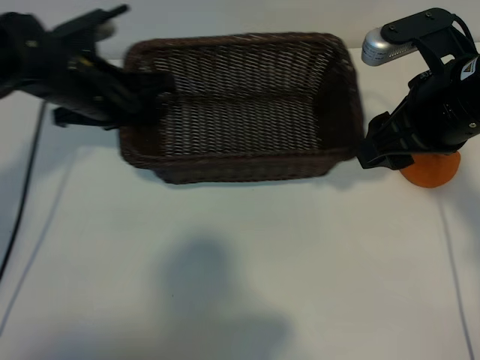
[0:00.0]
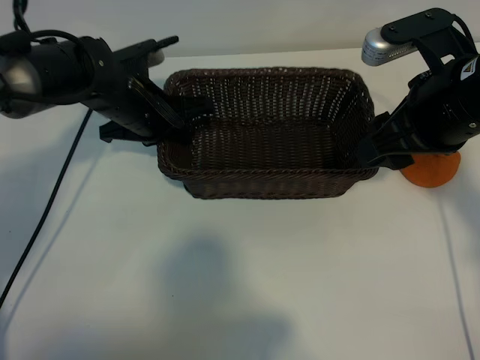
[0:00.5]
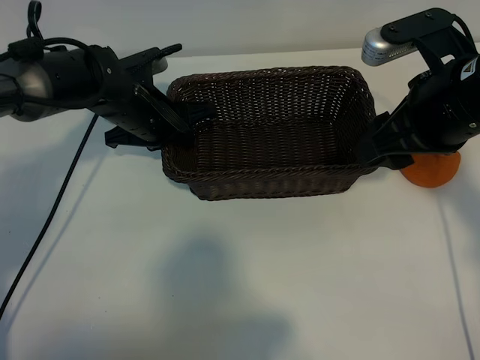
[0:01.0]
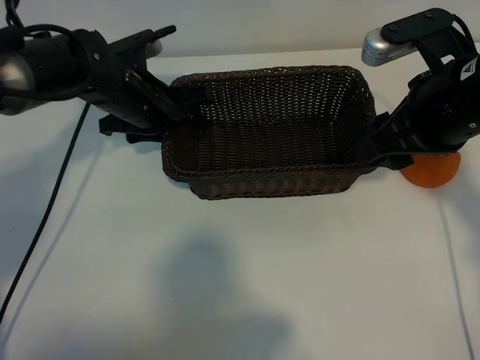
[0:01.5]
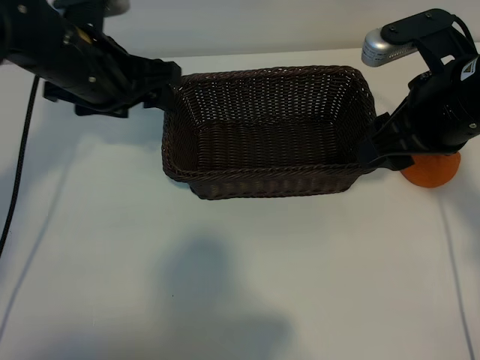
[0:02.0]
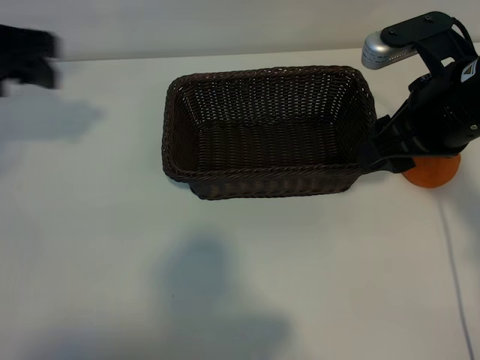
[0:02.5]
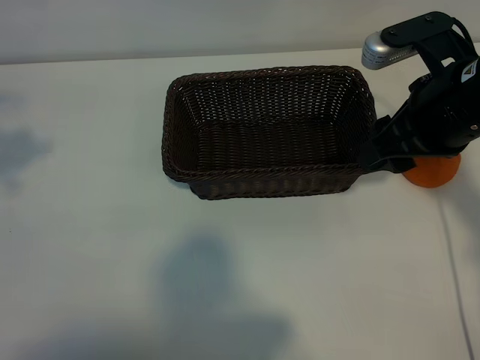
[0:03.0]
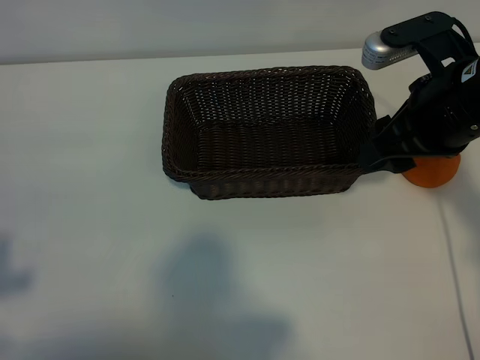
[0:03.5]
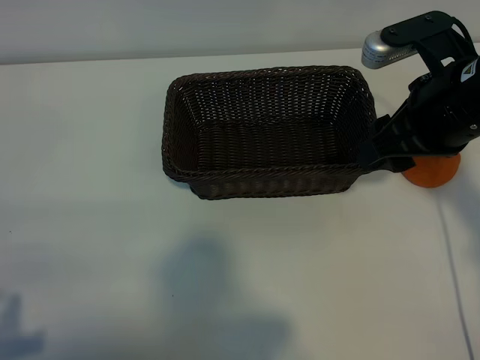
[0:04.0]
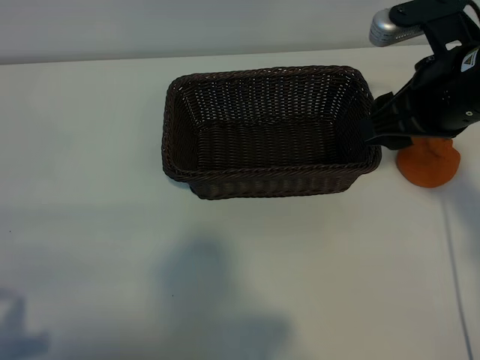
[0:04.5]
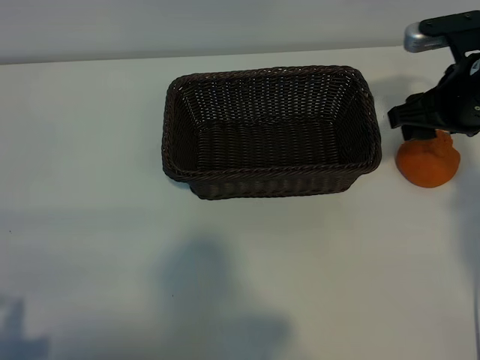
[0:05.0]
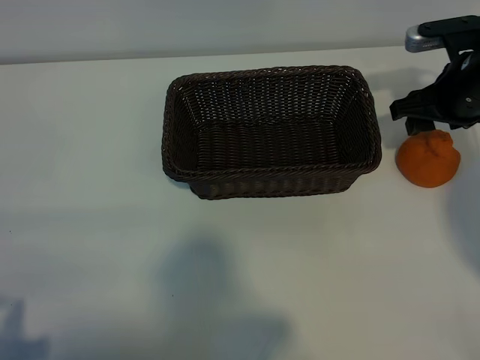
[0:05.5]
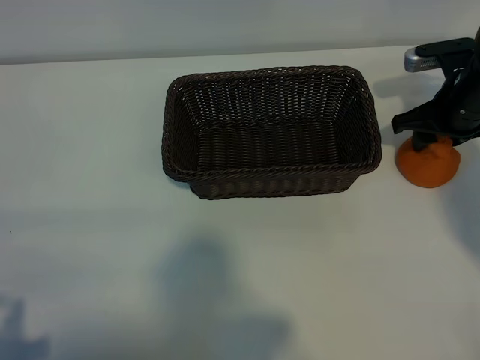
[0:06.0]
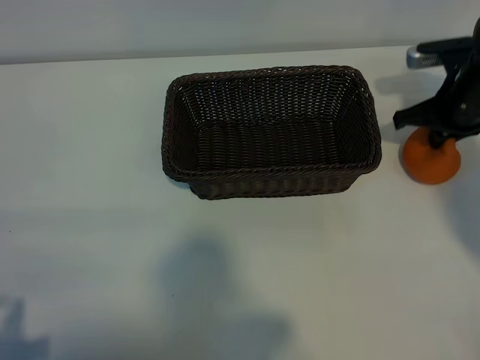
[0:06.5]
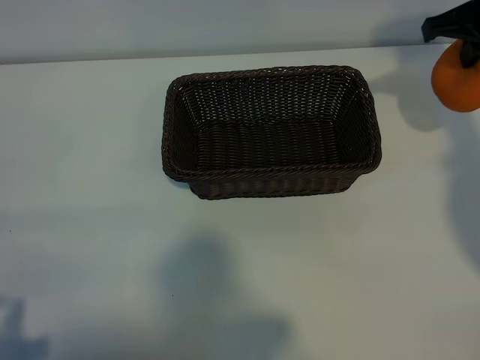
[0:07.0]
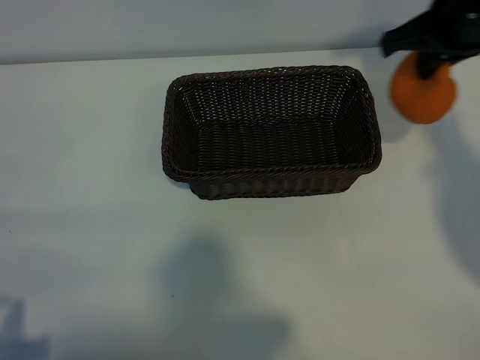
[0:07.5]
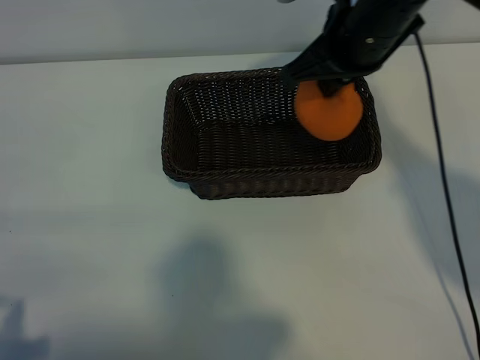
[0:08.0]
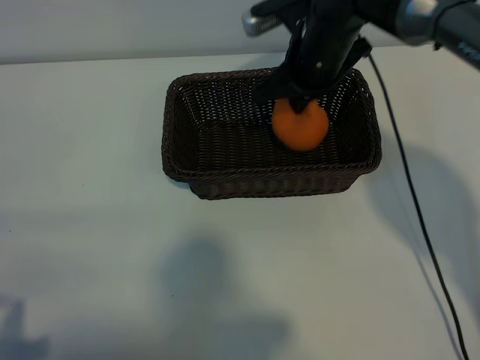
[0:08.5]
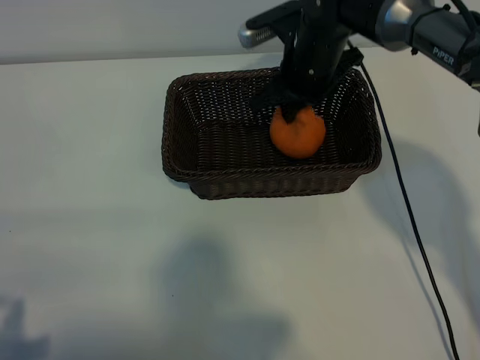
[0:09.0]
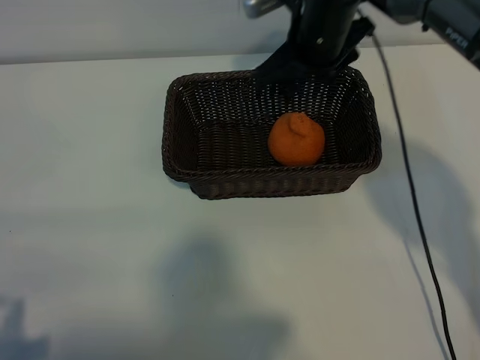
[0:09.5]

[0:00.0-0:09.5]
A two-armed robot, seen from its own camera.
Task of the whole recording: pick up the orange and put it into the basket.
Step, 0:01.5 to 0:06.0: Grasp the orange with right gripper.
Step, 0:06.5 to 0:09.0: Place the orange in the basket with right gripper.
